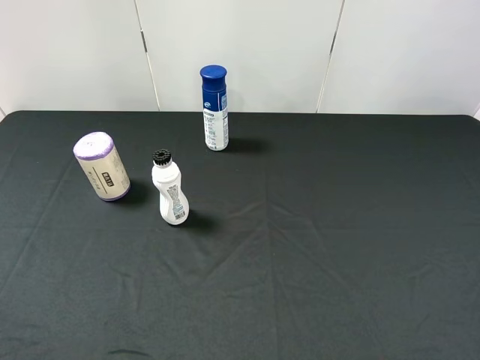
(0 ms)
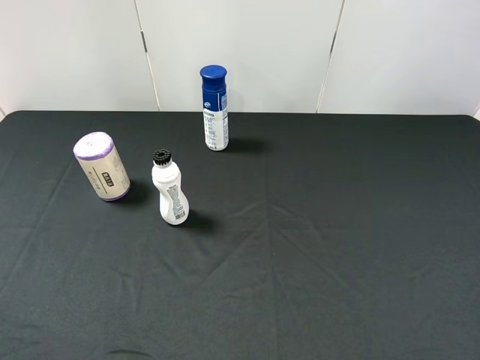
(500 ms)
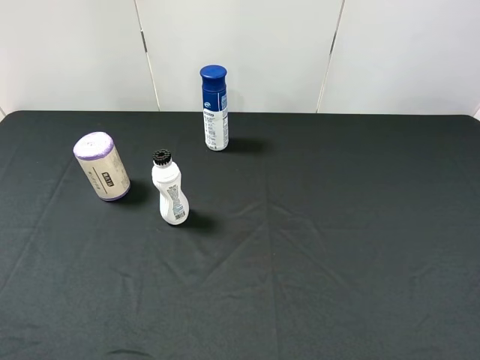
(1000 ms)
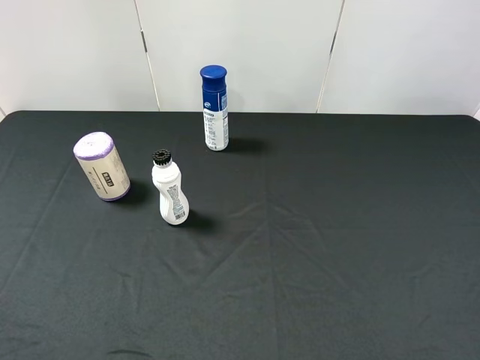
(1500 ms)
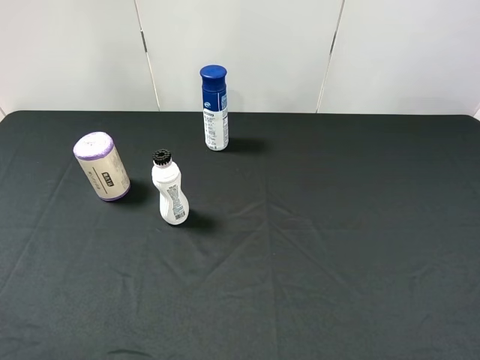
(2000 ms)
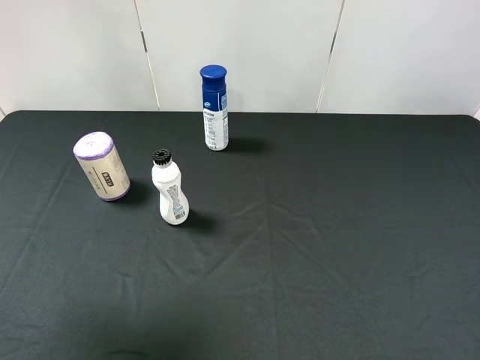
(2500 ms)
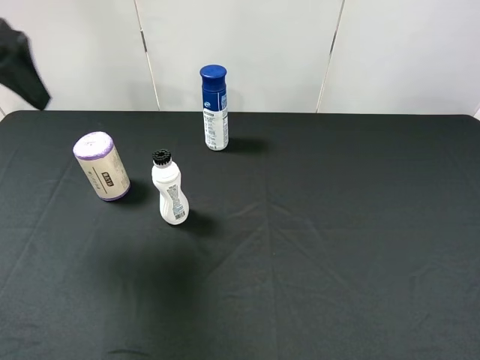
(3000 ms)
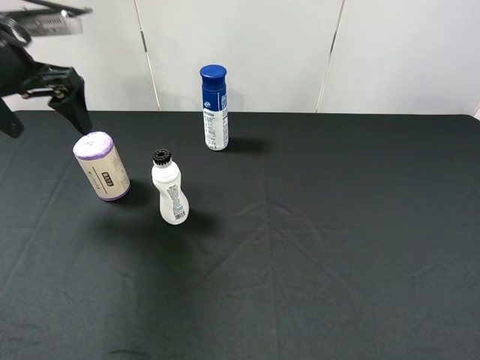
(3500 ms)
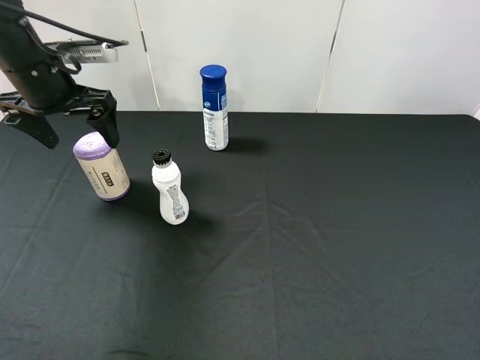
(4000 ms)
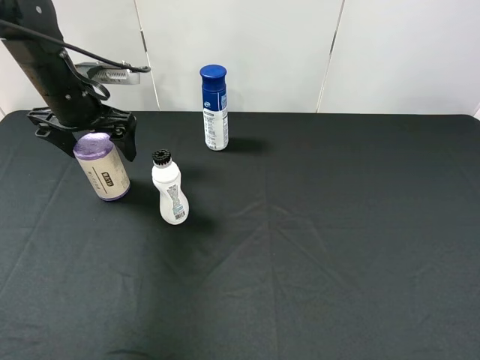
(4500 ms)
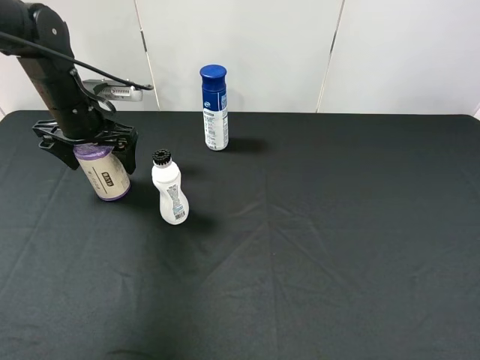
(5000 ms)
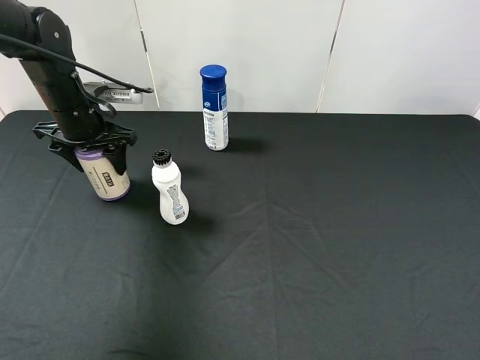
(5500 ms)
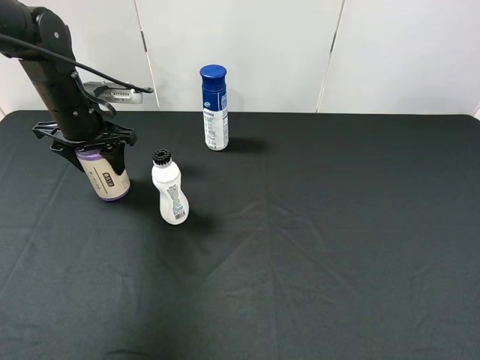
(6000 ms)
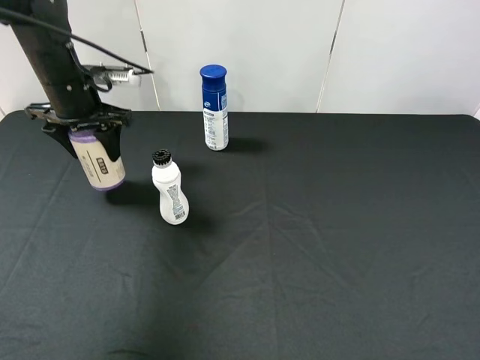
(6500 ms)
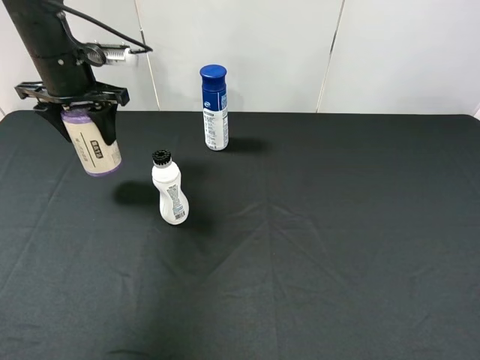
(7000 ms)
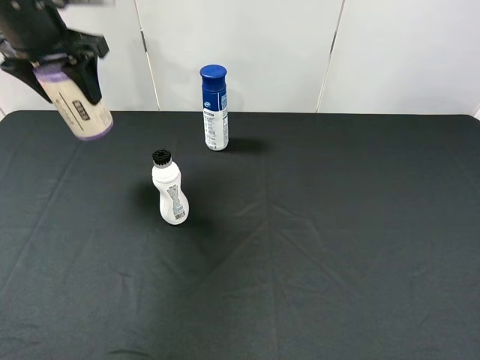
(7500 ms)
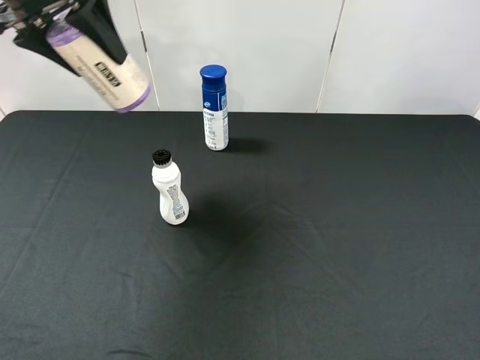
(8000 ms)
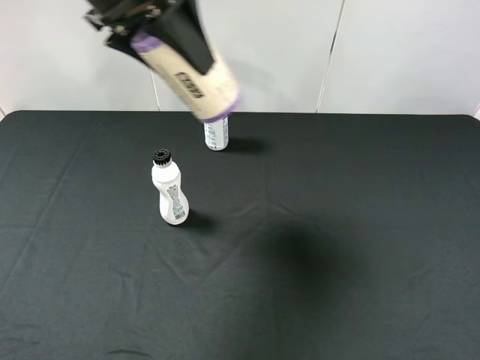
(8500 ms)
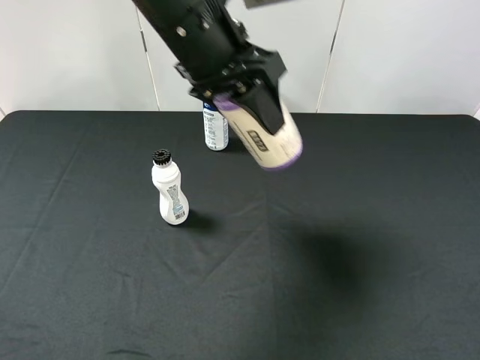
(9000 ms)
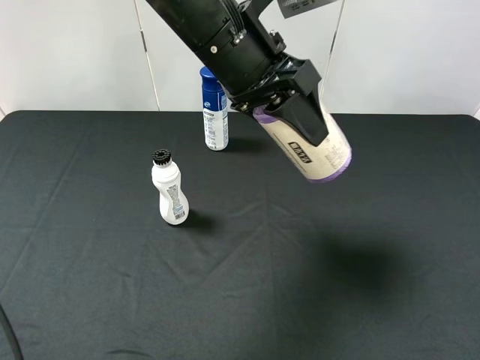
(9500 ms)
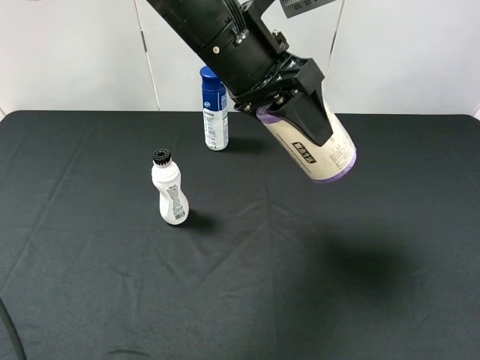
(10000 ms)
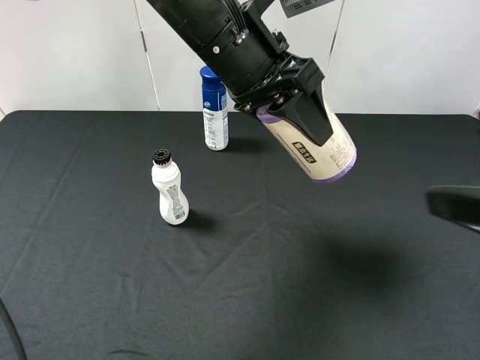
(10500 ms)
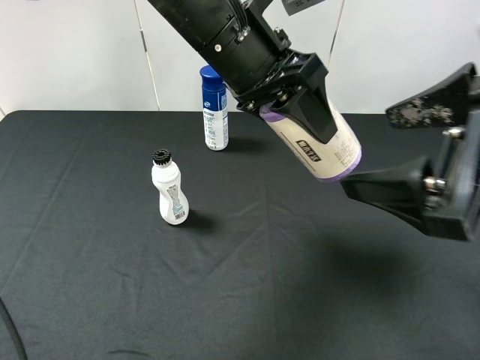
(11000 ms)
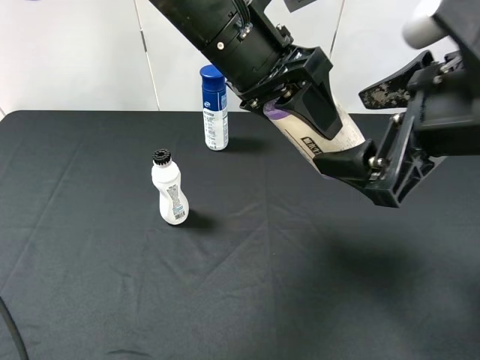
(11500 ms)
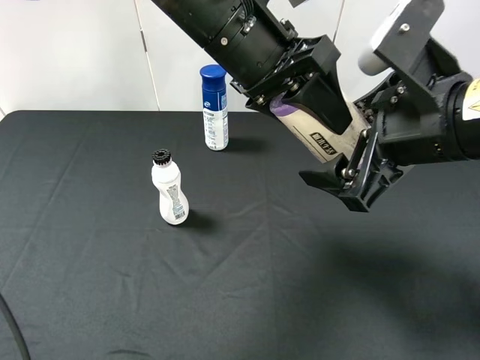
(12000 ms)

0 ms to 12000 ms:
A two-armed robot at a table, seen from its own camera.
Task of the whole recording: use the left gripper to pick up the item and transfer it from the left gripper to the right gripper.
2000 ms to 4000 ms: The left gripper heads forward and downward, covering some 35 cm.
4000 ms to 6000 ms: The left gripper travels downward by some 5 cm, and closes.
6000 ms to 8000 ms: The left gripper heads upward, covering about 20 cm.
8000 ms to 10000 ms: The left gripper moves to the right, approximately 20 cm.
10000 ms to 12000 ms: The right gripper travels forward and to the left by some 20 cm.

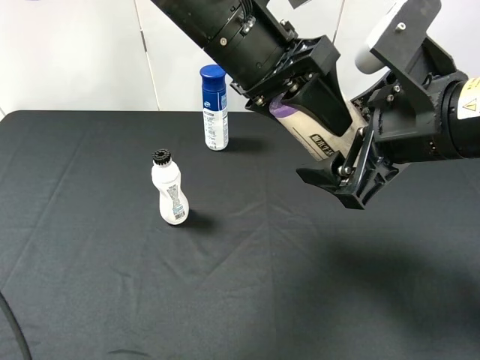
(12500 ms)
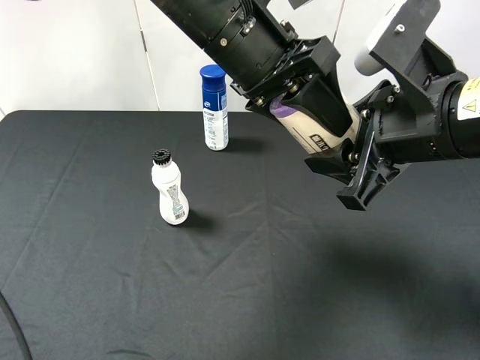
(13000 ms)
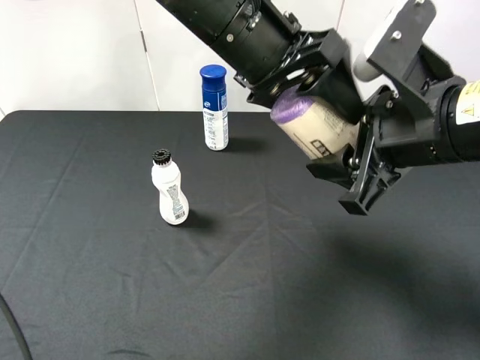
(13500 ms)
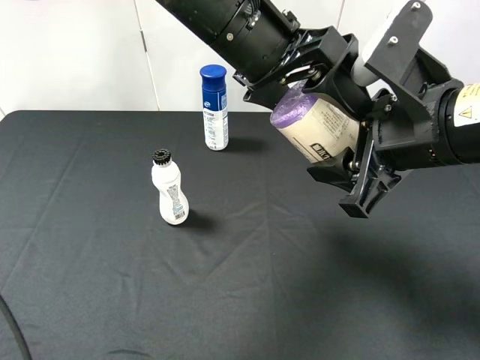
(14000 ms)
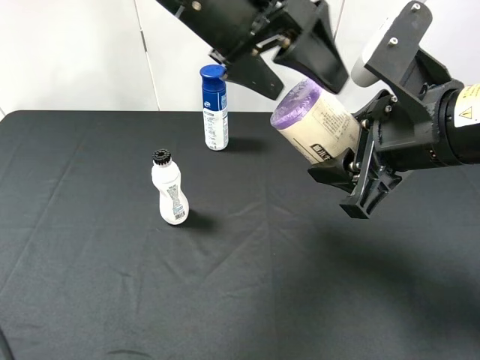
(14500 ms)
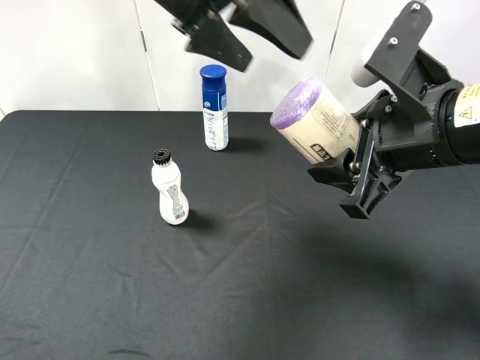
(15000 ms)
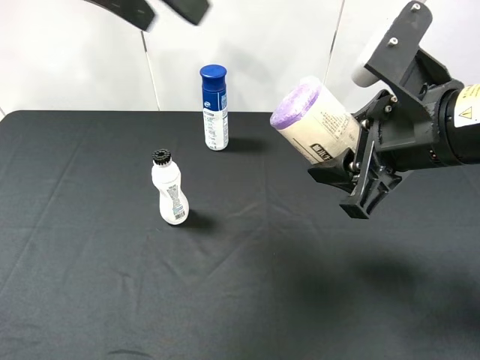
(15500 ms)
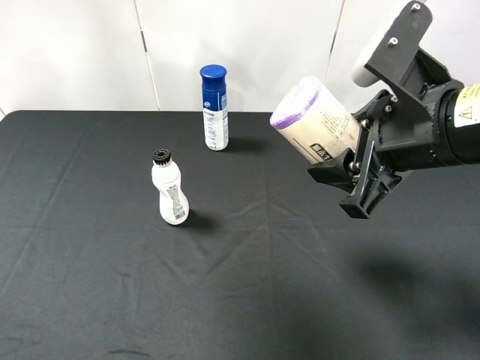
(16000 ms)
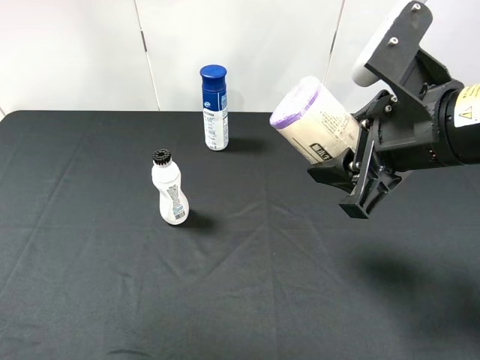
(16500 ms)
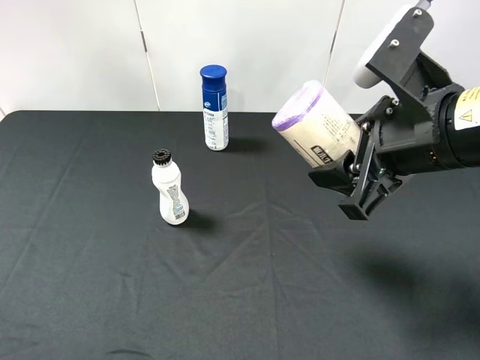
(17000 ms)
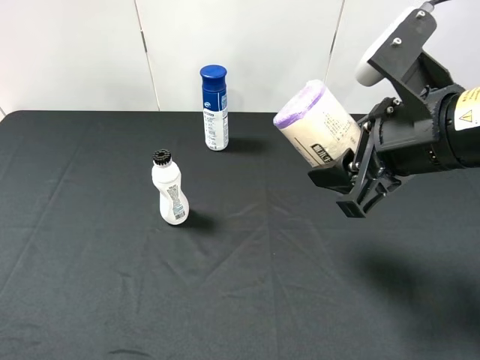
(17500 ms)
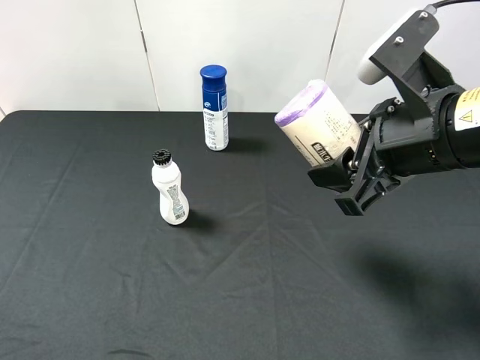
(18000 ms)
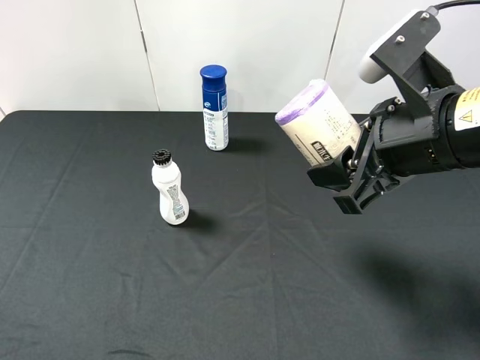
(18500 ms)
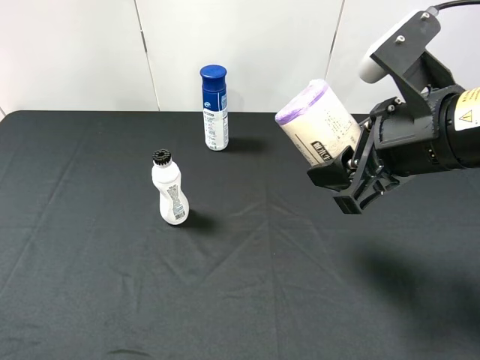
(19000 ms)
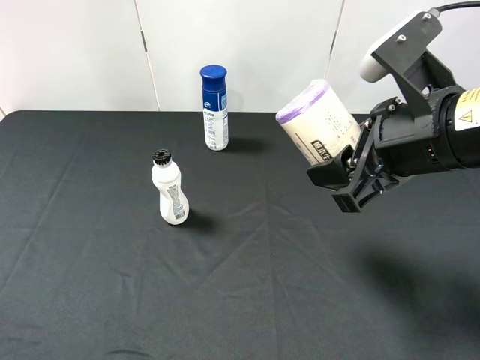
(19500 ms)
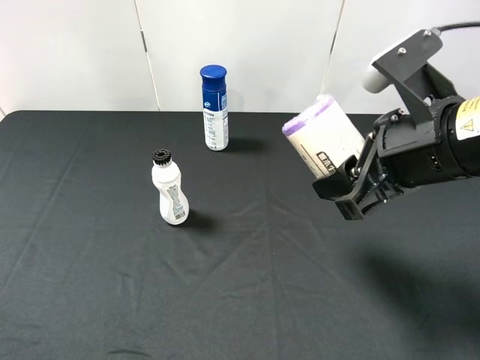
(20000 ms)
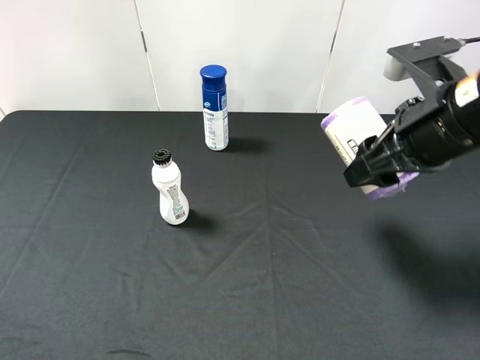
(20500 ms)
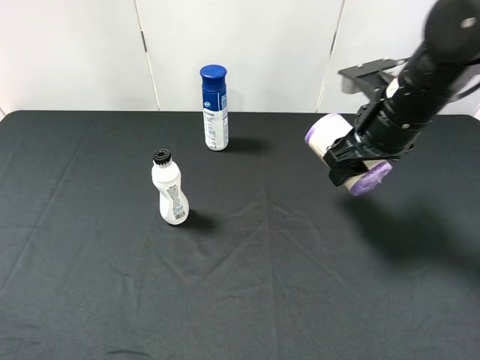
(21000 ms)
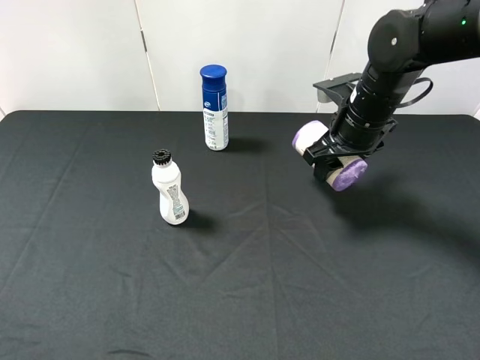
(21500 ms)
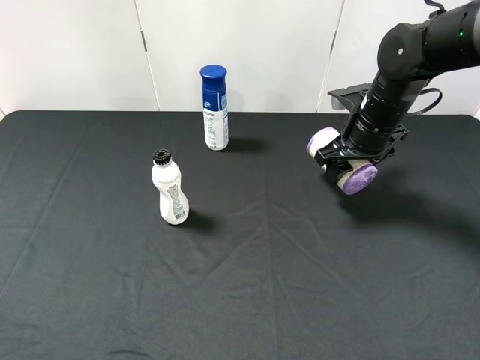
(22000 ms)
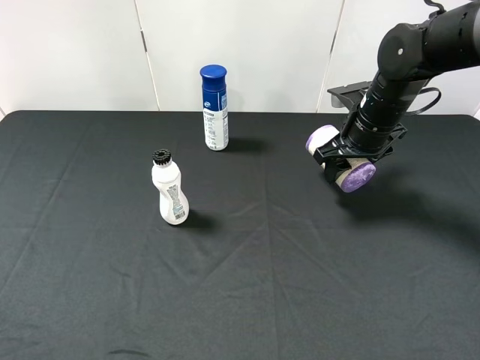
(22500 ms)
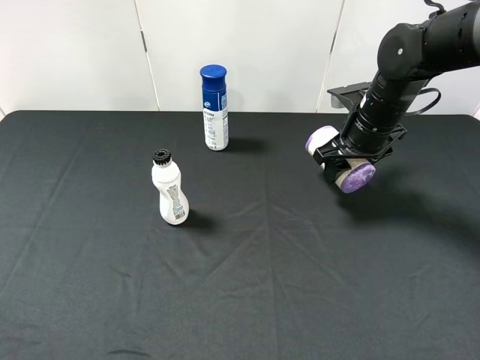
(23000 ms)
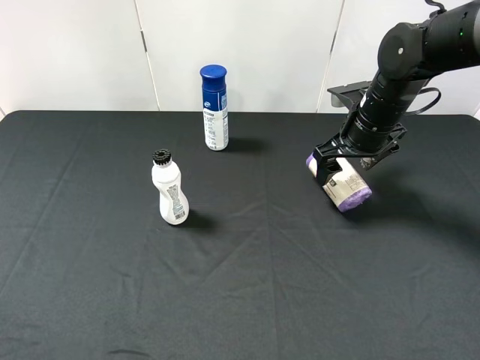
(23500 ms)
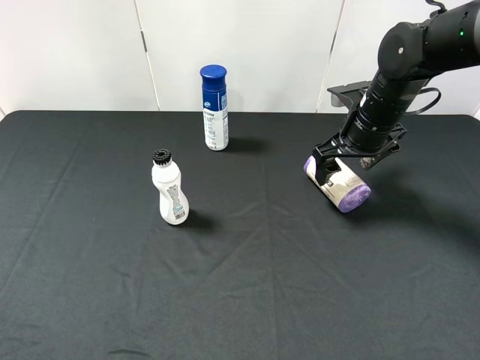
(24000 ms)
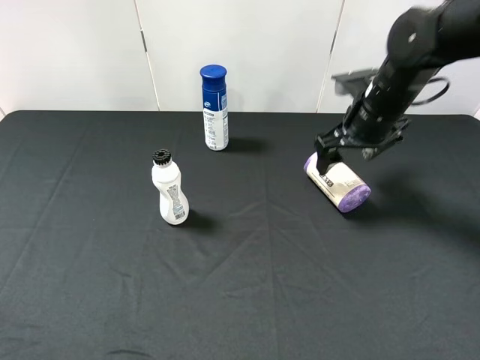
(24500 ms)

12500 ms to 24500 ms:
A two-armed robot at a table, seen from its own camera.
Task of the whole recording: use the left gripper to pick up the item and transfer it from the left gripper to the right gripper.
12500 ms to 14500 ms: The right gripper closes its fingers. Meanwhile the left gripper opens up.
14500 ms to 16500 ms: The left gripper travels to the left, backward and upward by some 30 cm.
16500 ms to 18500 ms: The left gripper shifts roughly 20 cm downward and backward.
18500 ms to 20500 ms: The right gripper moves some 5 cm.
20500 ms to 22500 ms: The right gripper shifts approximately 15 cm forward and downward.
22500 ms to 24500 ms: The right gripper opens up.

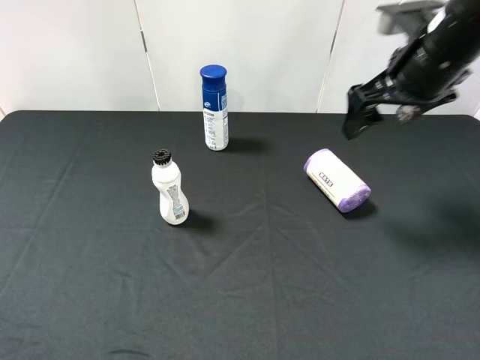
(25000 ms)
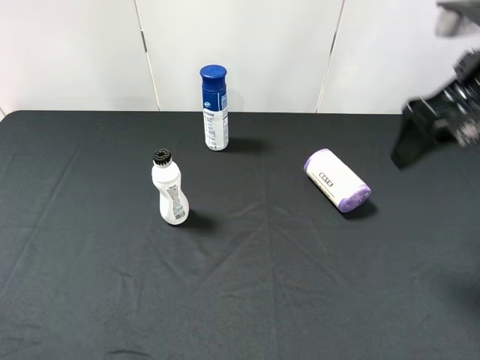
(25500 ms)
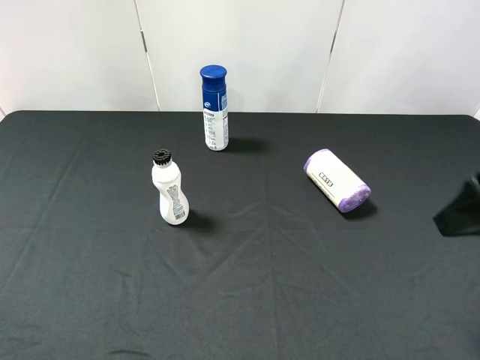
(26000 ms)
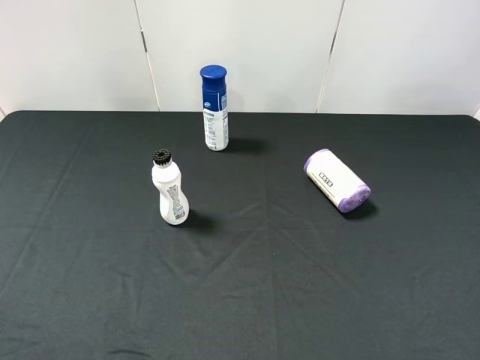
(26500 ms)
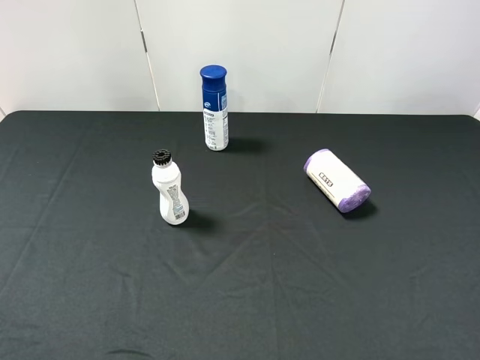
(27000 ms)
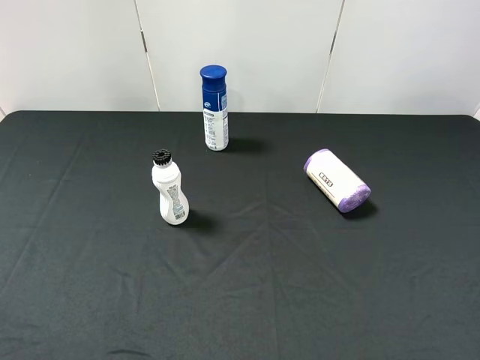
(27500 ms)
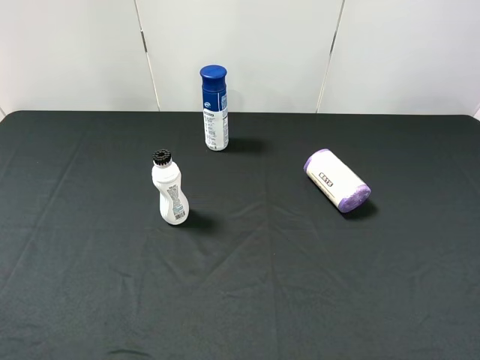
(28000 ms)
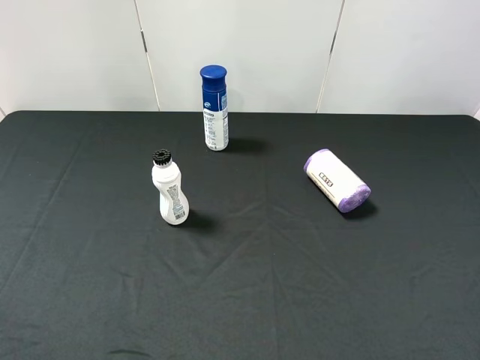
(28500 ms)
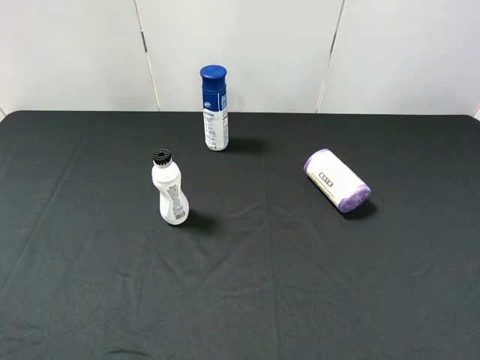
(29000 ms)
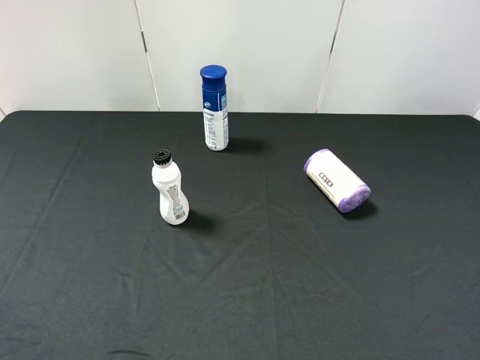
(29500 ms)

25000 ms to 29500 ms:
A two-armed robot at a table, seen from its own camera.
Task of the whole recording: use the left gripper to pick up the item and transfer it from the left gripper to the right gripper.
25000 ms to 27000 ms: The right gripper is displaced backward by roughly 30 cm.
